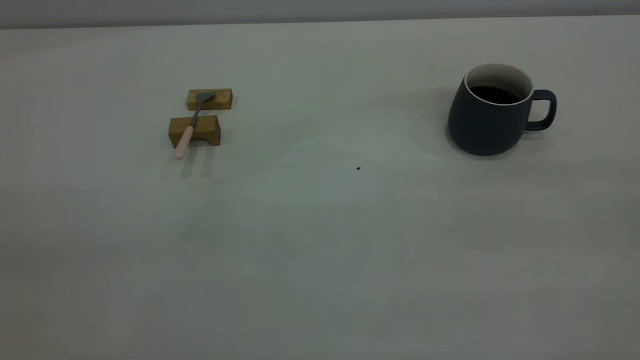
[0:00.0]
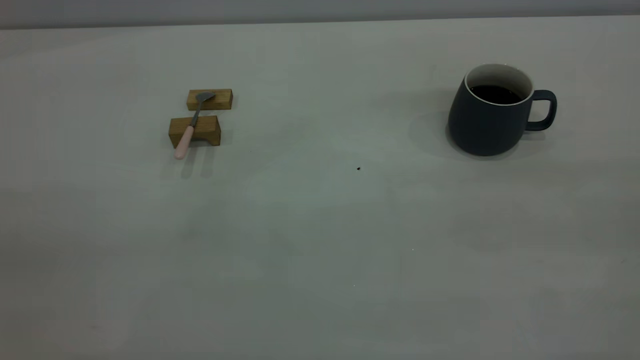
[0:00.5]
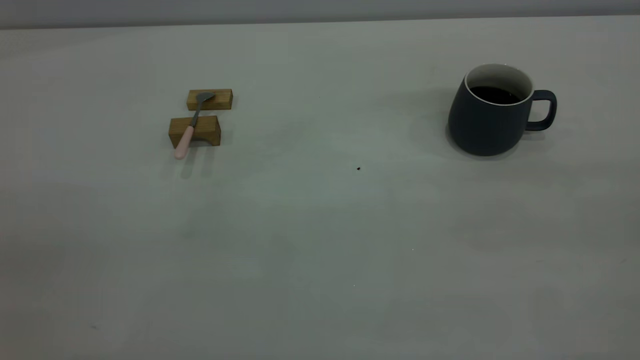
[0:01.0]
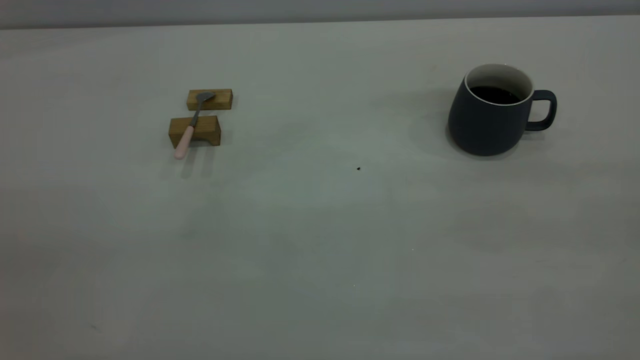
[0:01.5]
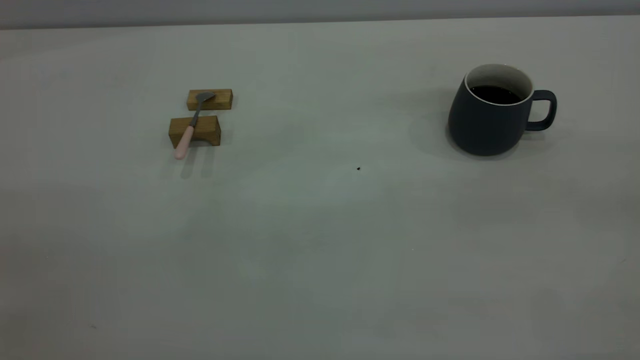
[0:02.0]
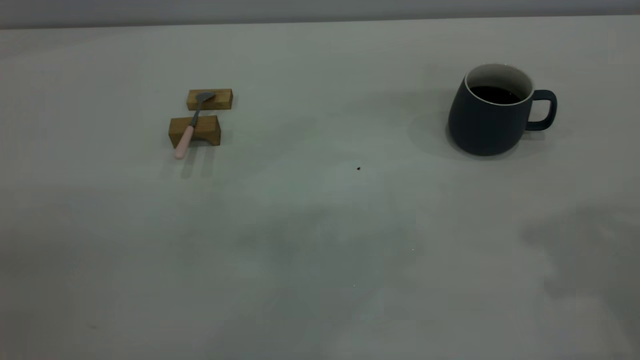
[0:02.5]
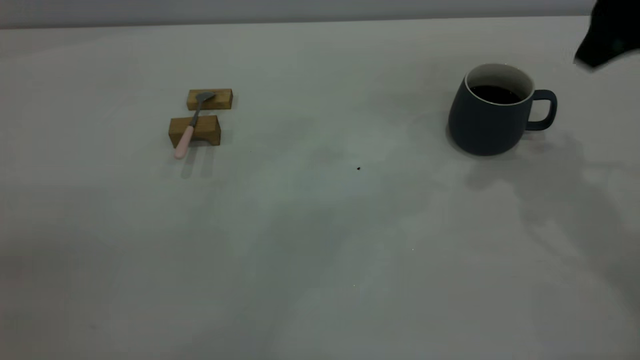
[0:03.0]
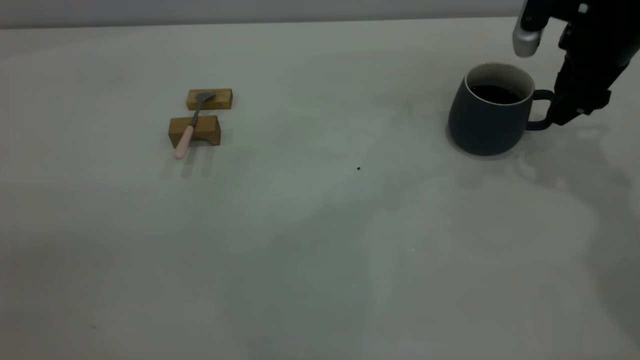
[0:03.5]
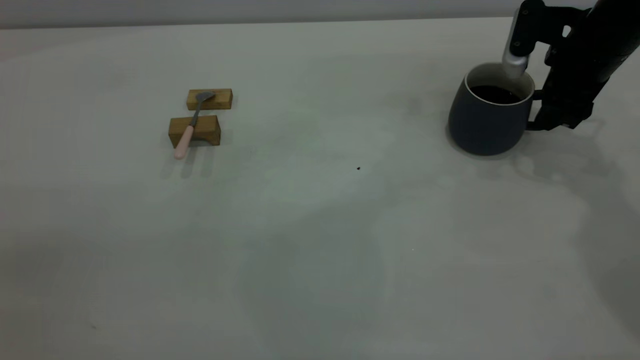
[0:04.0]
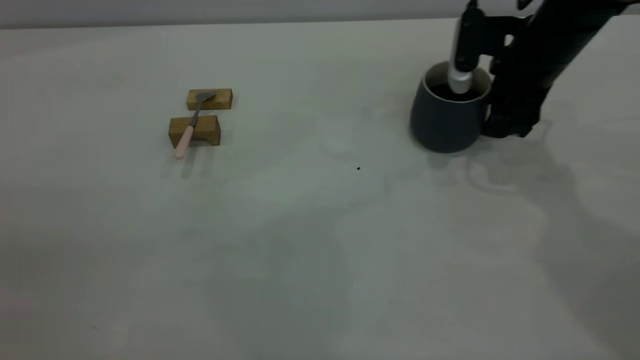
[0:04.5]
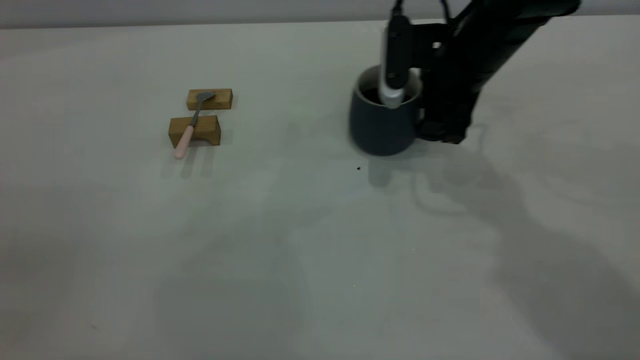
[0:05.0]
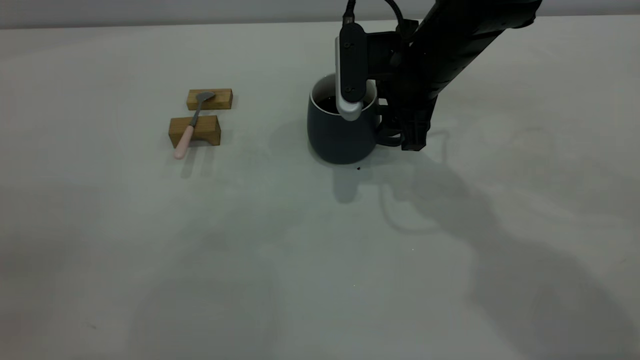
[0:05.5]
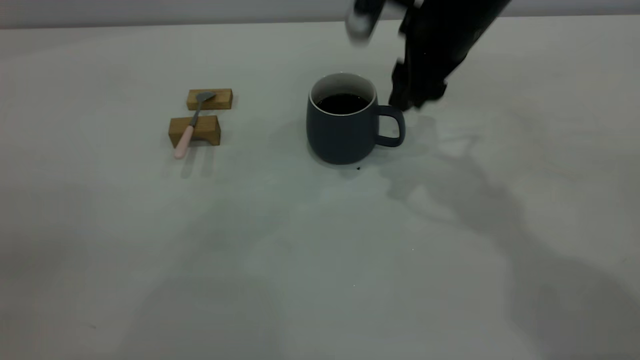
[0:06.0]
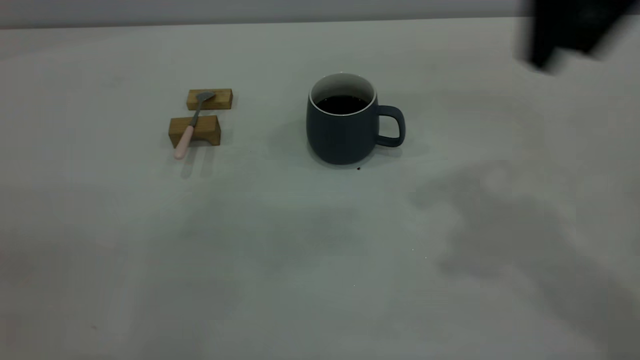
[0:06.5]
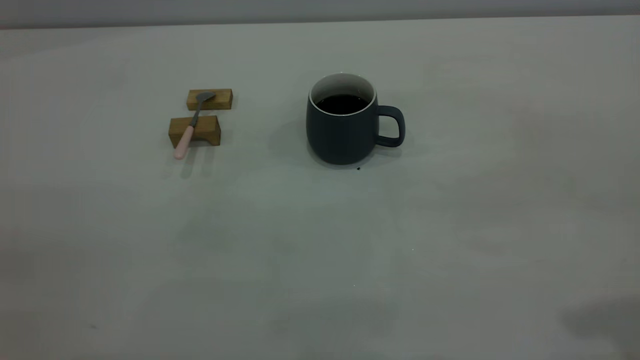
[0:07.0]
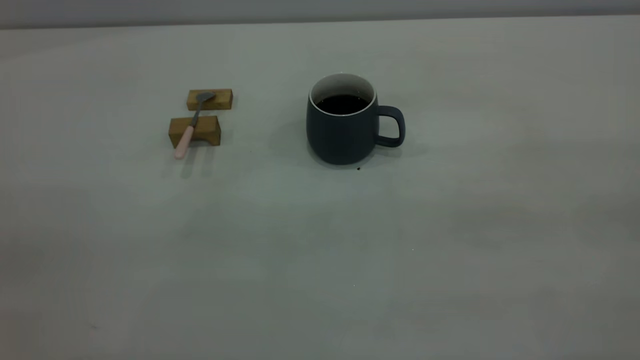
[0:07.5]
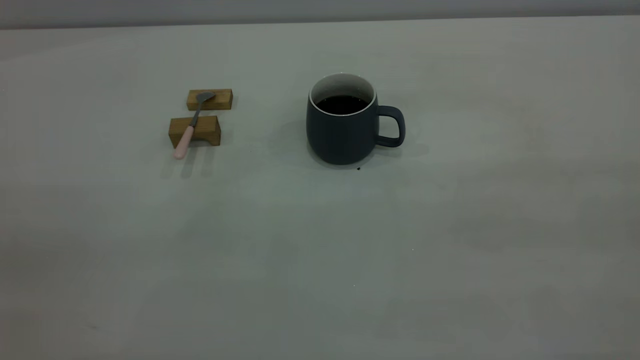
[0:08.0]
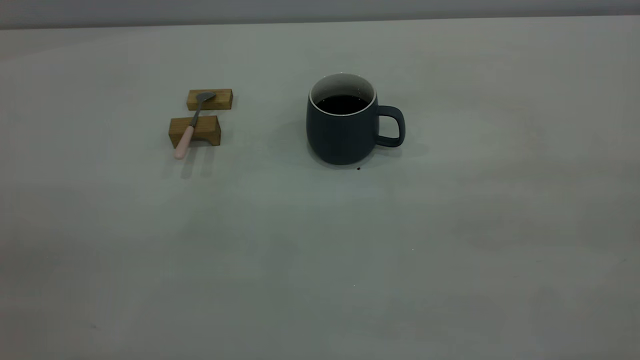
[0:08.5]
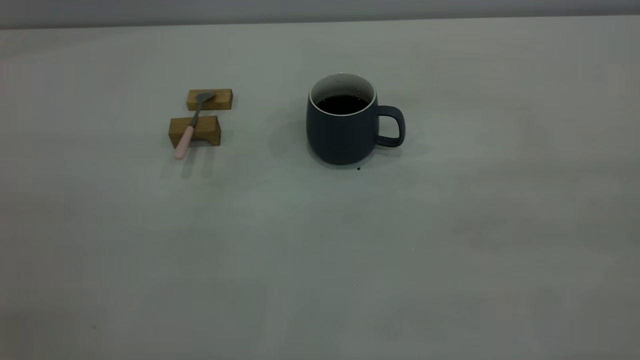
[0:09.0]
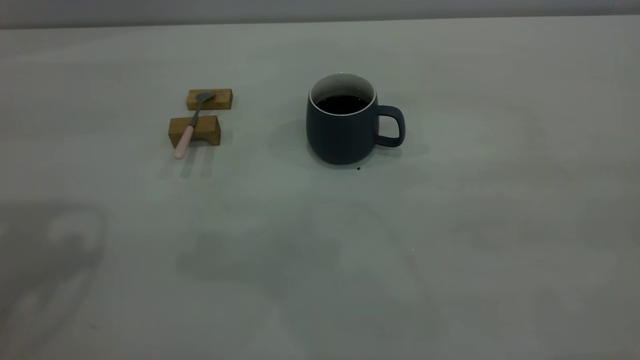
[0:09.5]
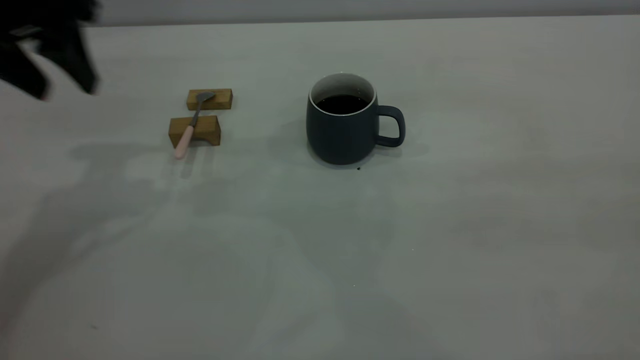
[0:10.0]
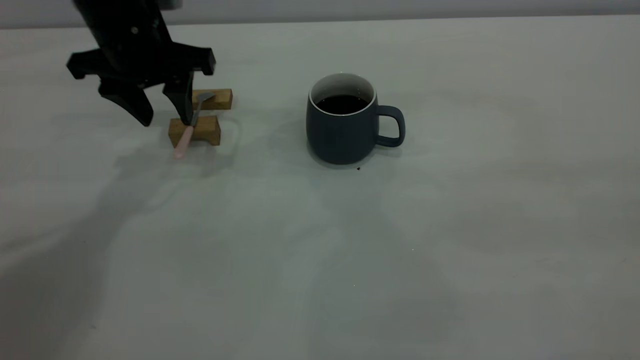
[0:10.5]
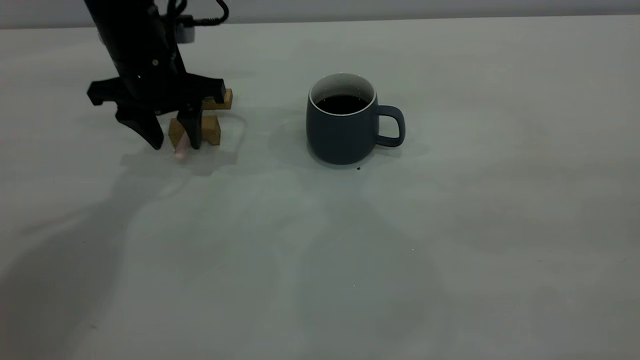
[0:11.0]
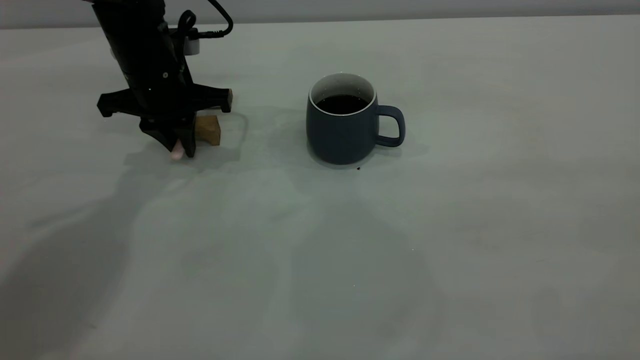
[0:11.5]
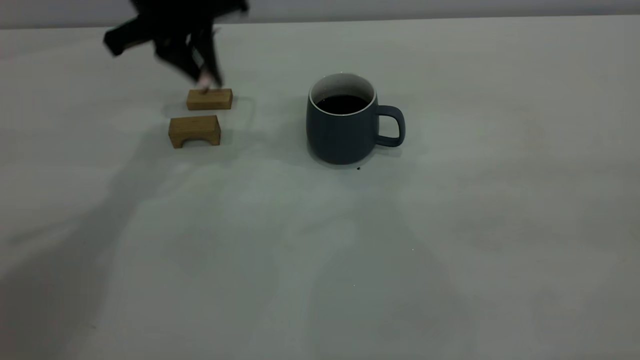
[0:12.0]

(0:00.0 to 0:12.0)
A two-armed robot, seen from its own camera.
Step, 0:00.0 - 0:06.0: Move the cup with coffee to the center of view.
Step, 0:06.5 - 0:11.5: Pick up the spoon.
0:02.0 - 0:04.0: The right gripper shifts some 50 cm forward and downward.
0:04.0 - 0:06.0: The right gripper heads to the left and upward, covering about 20 cm.
0:06.0 - 0:08.0: The right gripper shifts about 50 cm backward, to the right and upward.
0:08.0 - 0:10.0: The left gripper shifts about 35 cm forward, and opens.
0:10.0 - 0:12.0: The left gripper shifts roughly 10 cm forward and to the right, moves about 15 cm downward and comes back, and closes up.

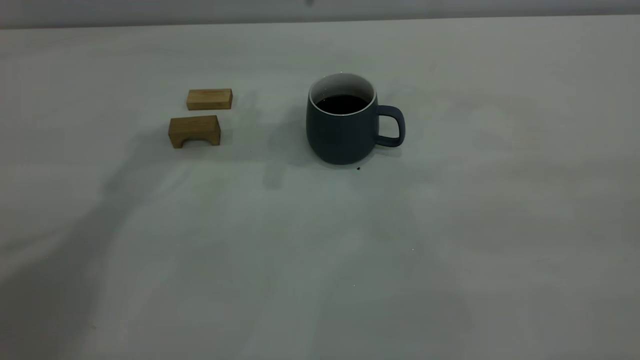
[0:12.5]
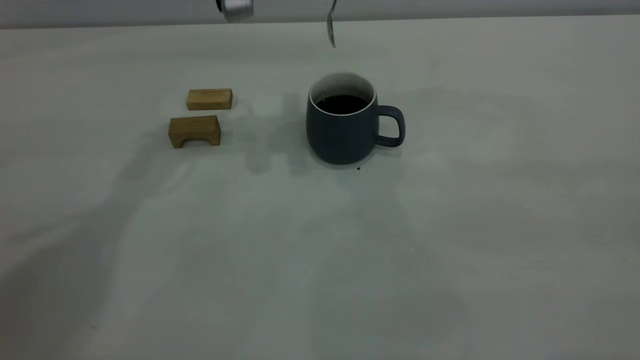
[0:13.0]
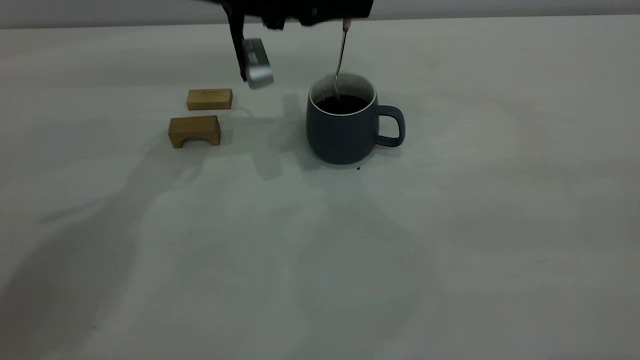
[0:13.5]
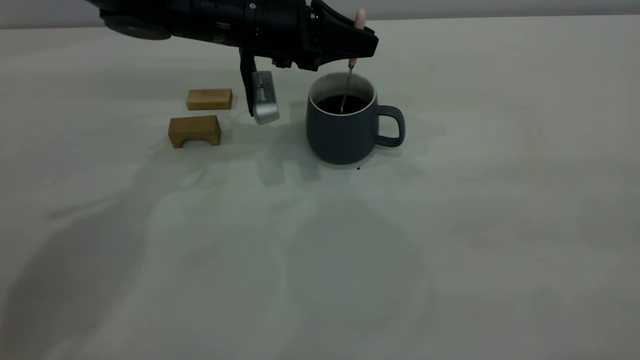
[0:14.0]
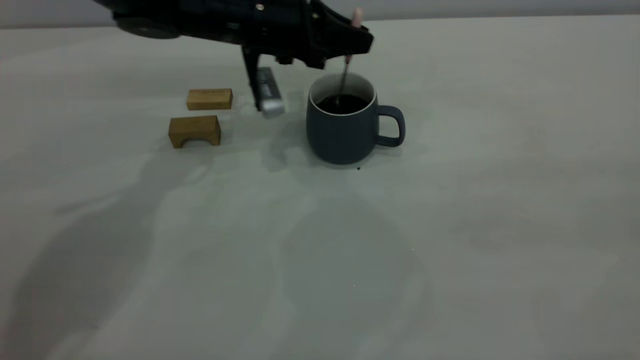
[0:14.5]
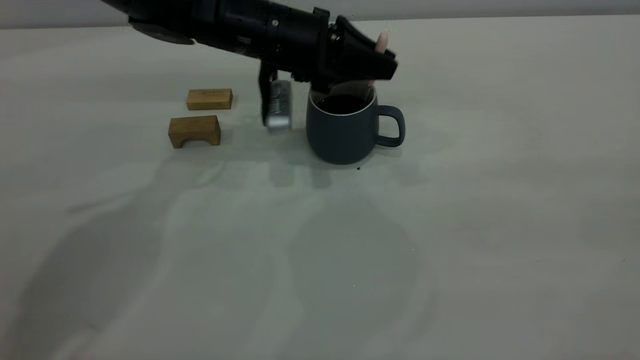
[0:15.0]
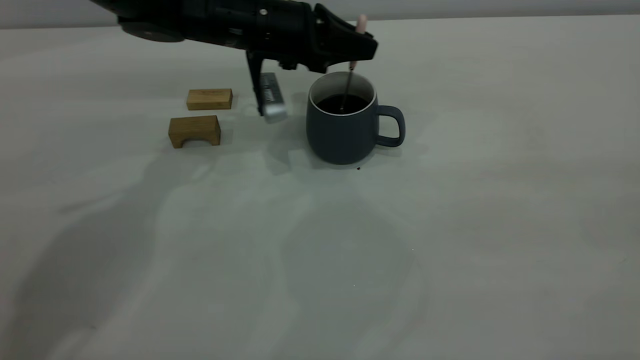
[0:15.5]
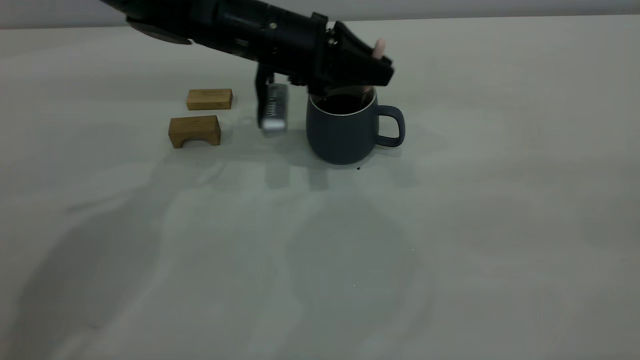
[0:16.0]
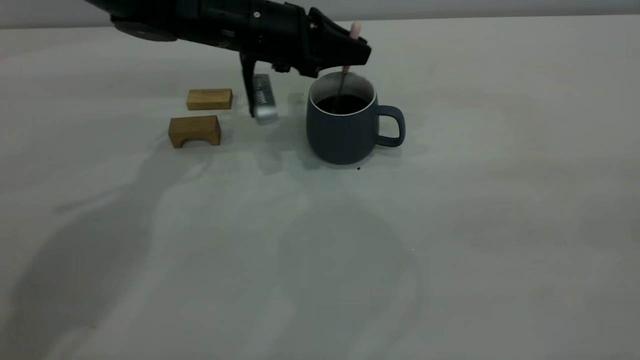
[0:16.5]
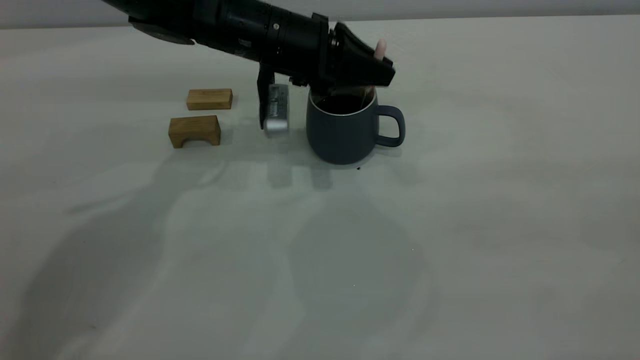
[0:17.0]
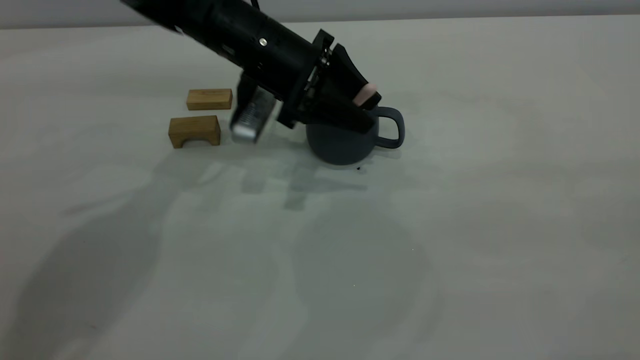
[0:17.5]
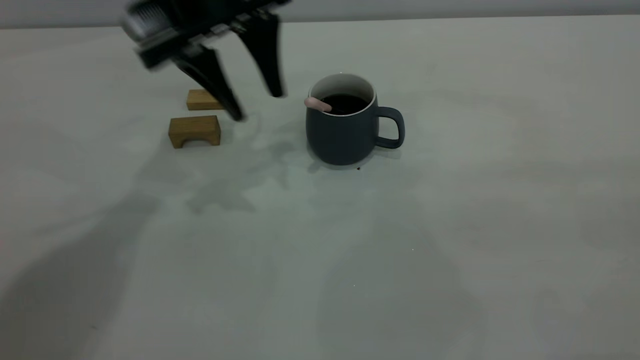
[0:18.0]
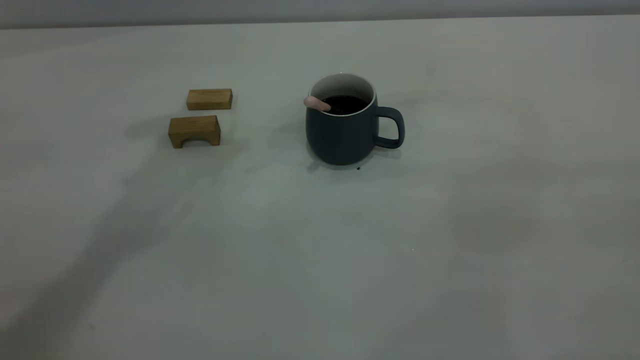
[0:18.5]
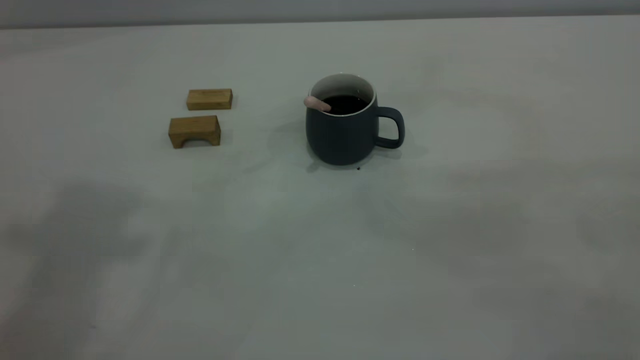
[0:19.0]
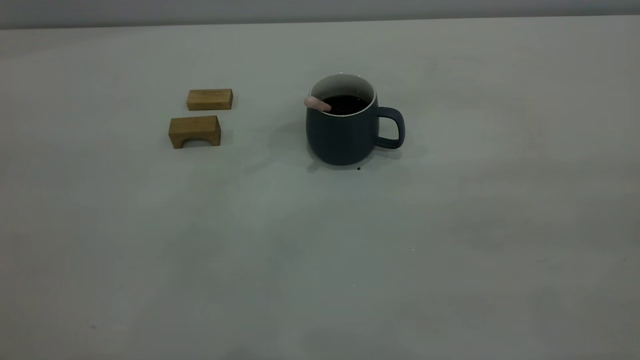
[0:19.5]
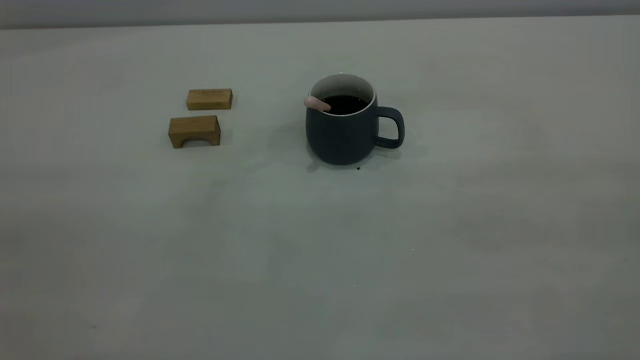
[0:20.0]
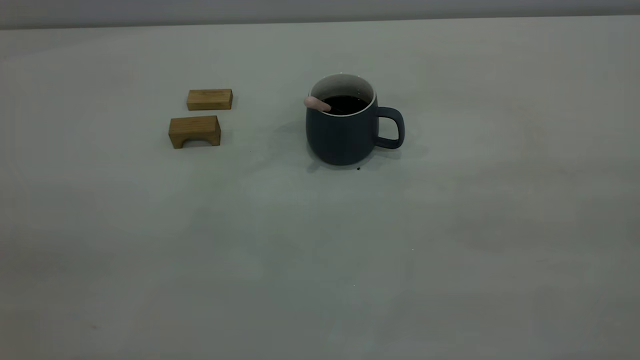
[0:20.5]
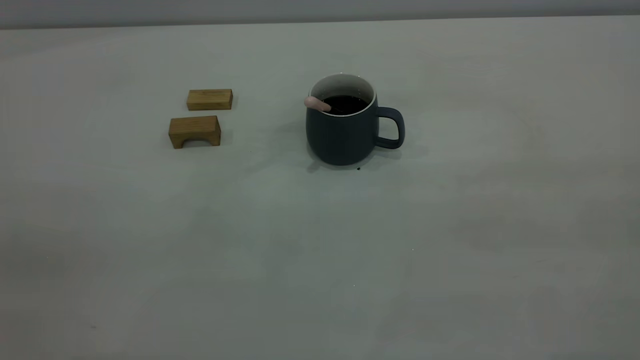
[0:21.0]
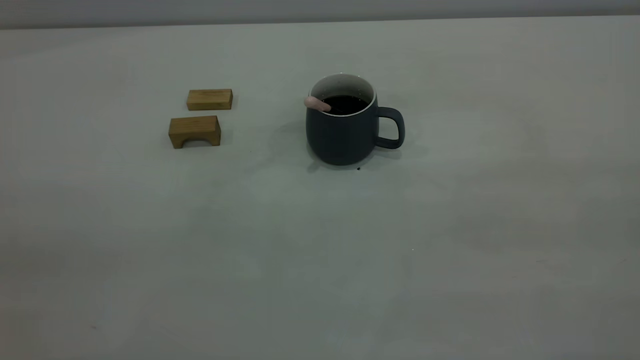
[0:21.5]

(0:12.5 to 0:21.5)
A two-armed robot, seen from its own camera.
Step, 0:12.5 - 0:17.5: Stir the coffee in the cup.
0:12.5 - 0:14.5: The left gripper heads downward, covering roughly 15 cm.
0:14.5 - 0:17.0: The grippers make only small movements.
0:17.0 - 0:19.5: The left gripper moves backward, upward and to the left, roughly 50 cm, and opens.
